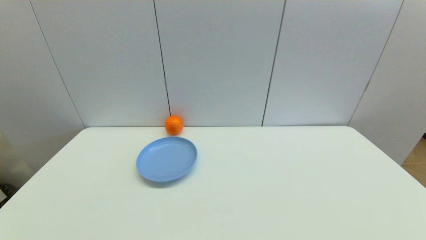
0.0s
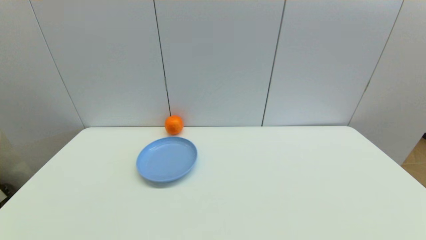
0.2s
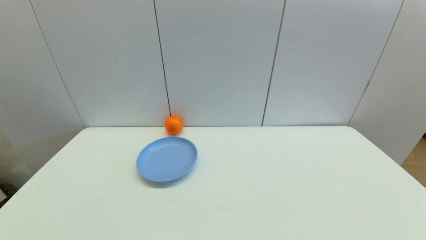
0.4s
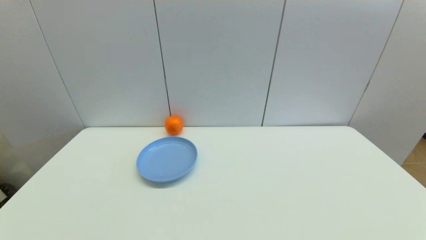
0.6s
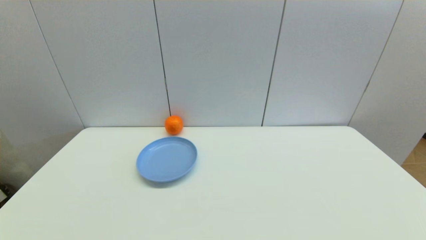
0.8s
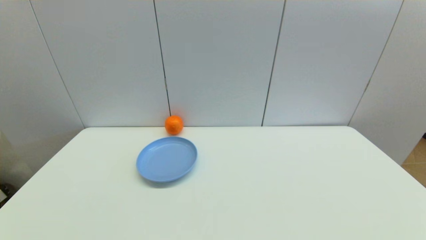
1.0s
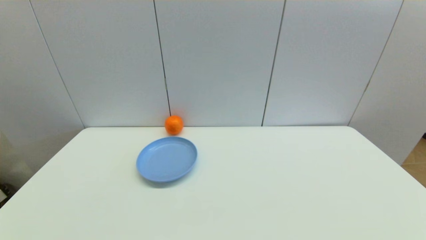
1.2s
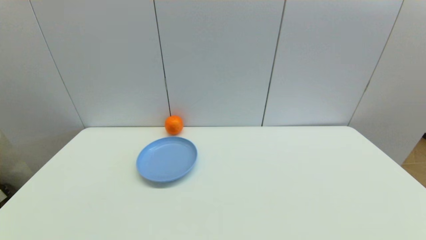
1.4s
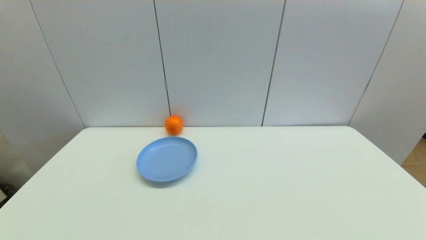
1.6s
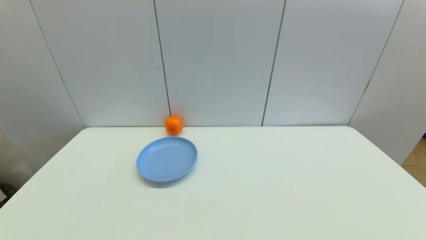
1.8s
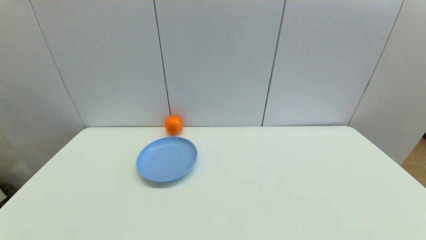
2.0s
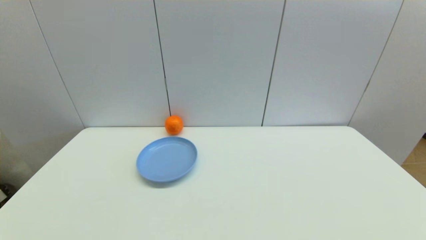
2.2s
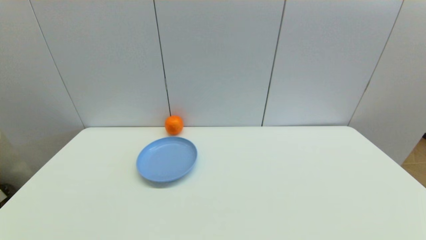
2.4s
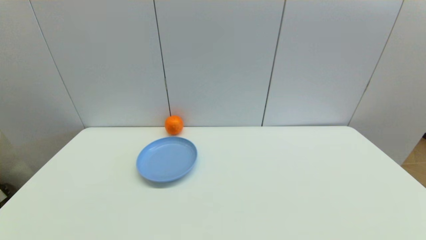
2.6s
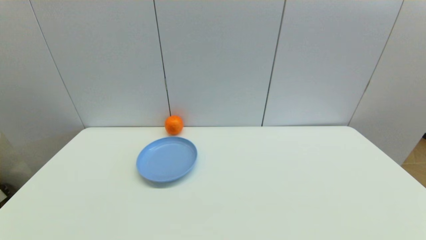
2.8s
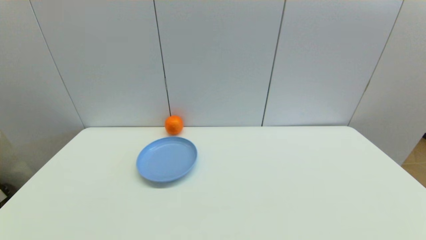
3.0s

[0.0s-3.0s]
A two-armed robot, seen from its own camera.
0.0s to 3.0s: Neither gripper changes place.
